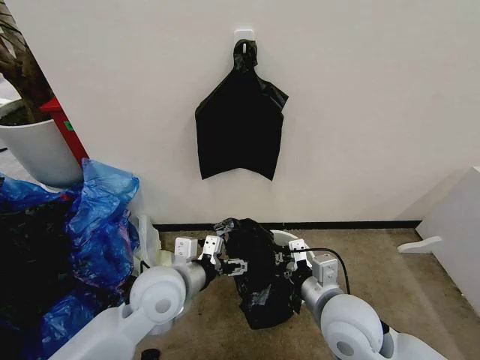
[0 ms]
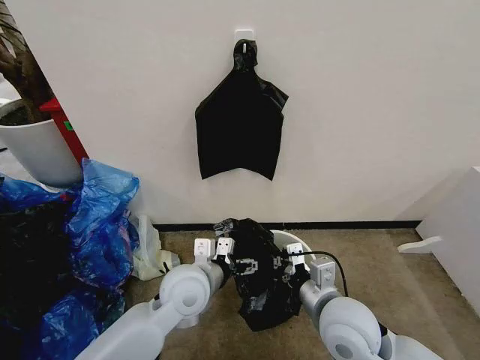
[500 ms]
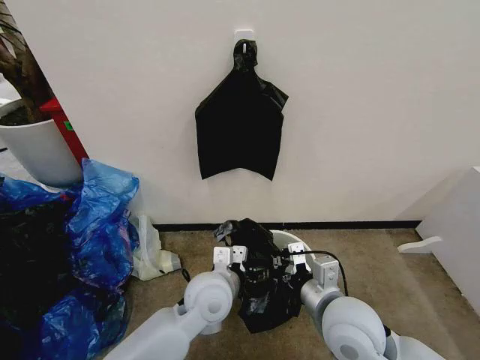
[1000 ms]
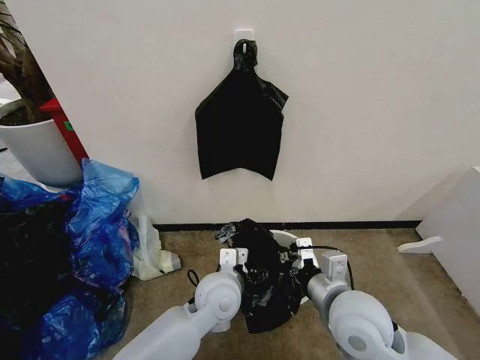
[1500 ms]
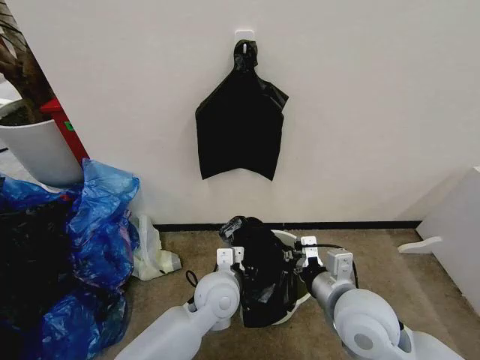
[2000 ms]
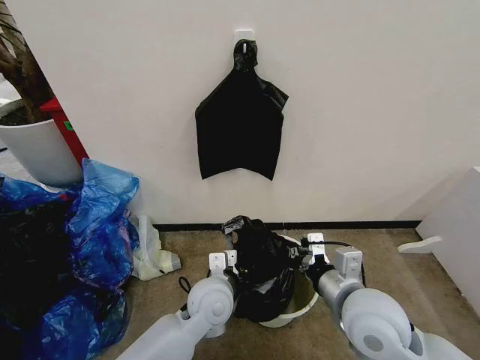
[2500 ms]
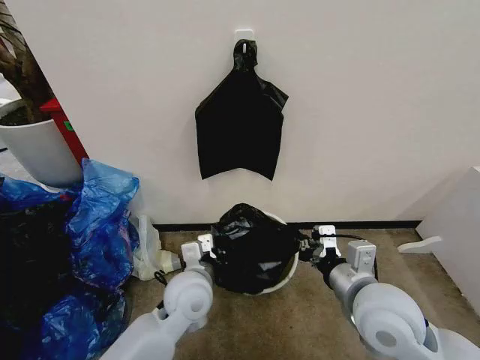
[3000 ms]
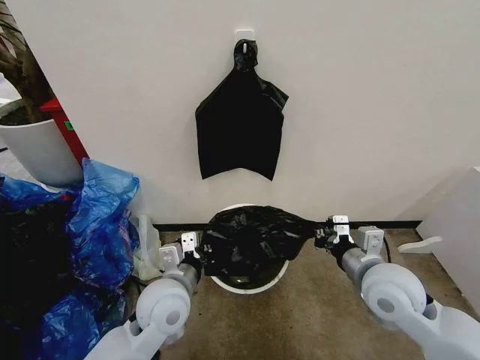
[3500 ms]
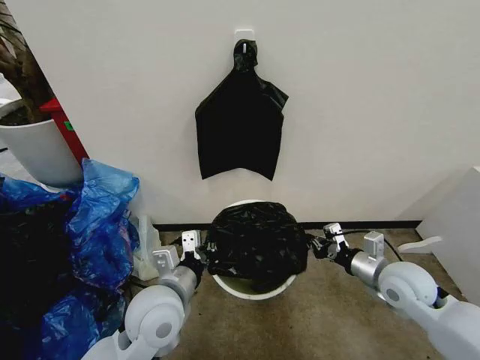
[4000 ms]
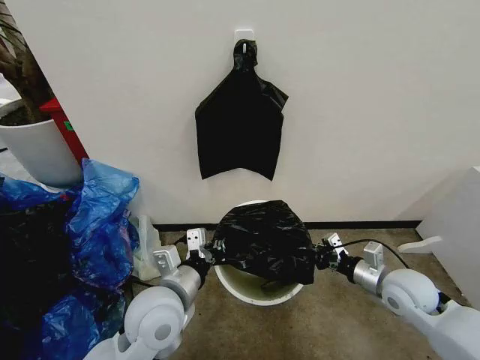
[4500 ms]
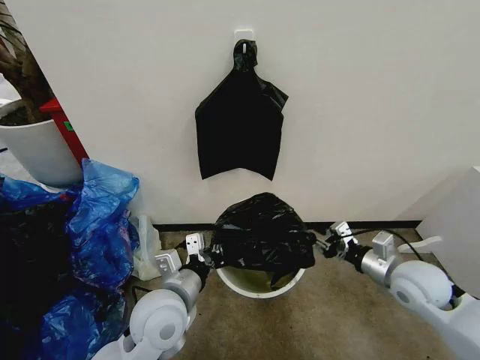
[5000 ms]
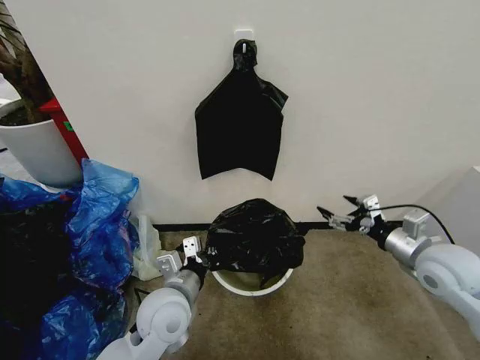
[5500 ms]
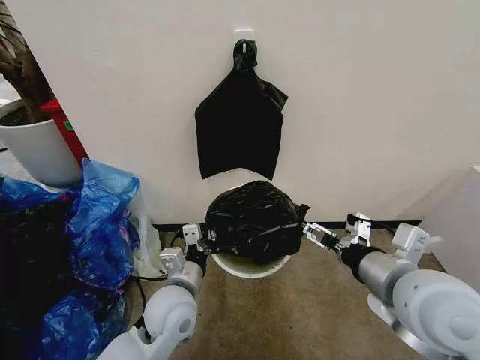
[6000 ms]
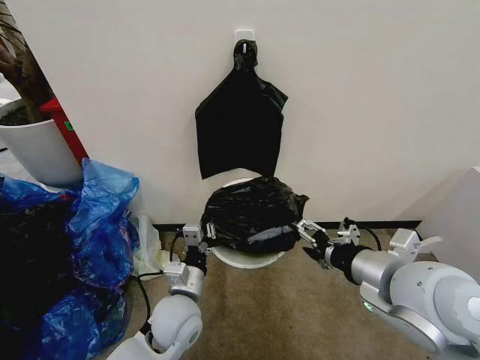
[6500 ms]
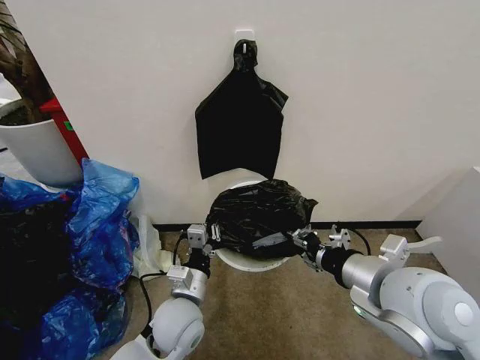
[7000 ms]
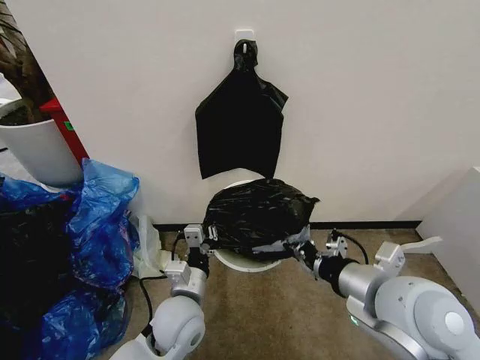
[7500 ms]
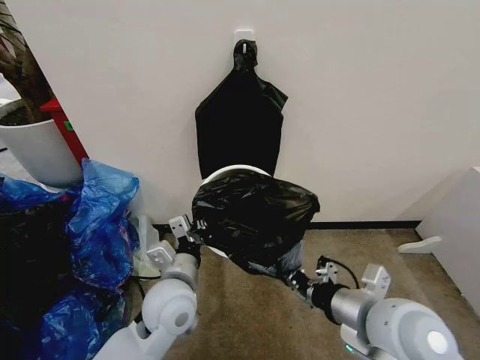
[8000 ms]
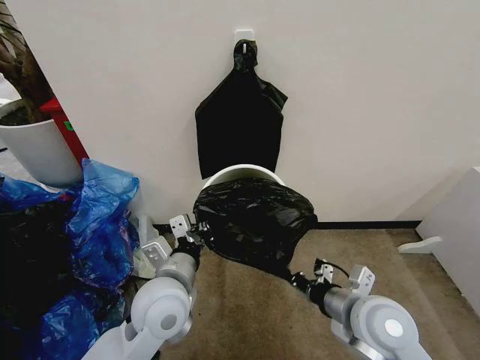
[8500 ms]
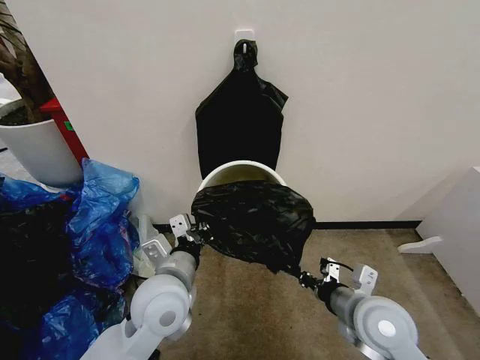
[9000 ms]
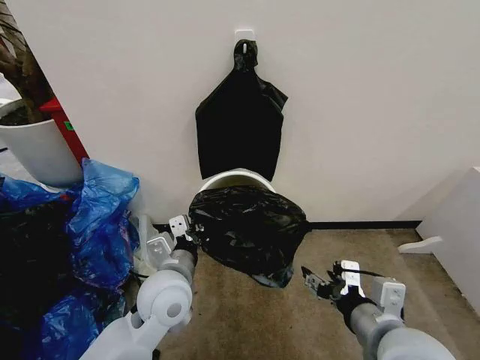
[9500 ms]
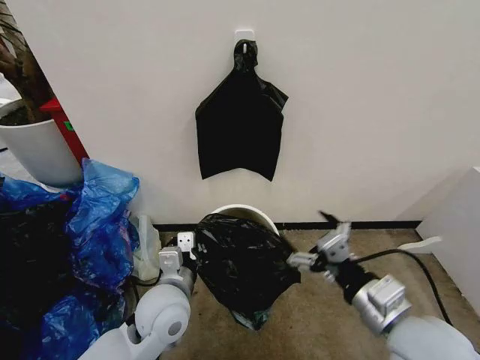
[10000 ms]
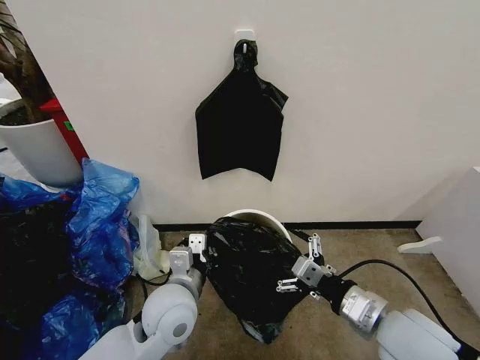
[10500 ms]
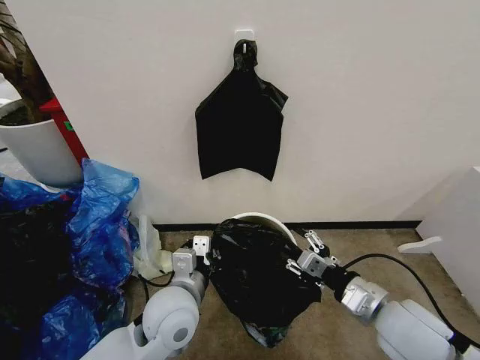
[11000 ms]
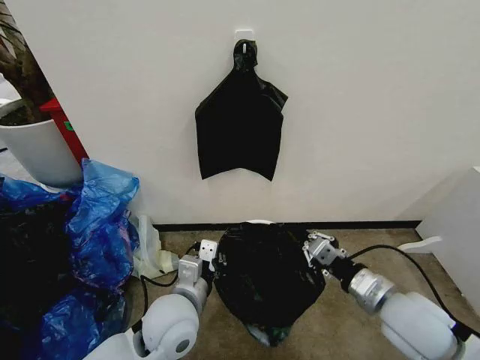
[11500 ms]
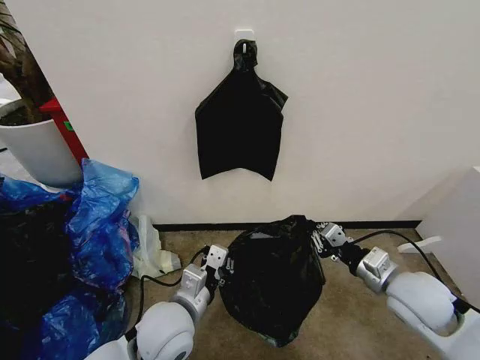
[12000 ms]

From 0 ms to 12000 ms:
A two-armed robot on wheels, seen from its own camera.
Task of the whole recording: Place the garbage bag over the trash bin.
From 0 ms to 2000 ms: The left gripper travels to the right and downward by roughly 15 cm, and closes.
From 2000 ms to 4000 ms: The right gripper shifts approximately 15 cm to the right and forward, while the left gripper moves to the left, upward and backward, about 15 cm, and closes up.
From 4000 ms to 6000 ms: The left gripper moves about 5 cm, while the right gripper heads upward, backward and to the left, covering about 20 cm, and opens its fingers.
From 6000 ms to 8000 ms: The right gripper is displaced downward by approximately 5 cm, and closes.
From 8000 ms to 10000 ms: The right gripper goes downward and returns, some 10 cm each way, and opens its fingers.
From 10000 ms to 12000 ms: The right gripper is displaced forward, to the right and downward by about 15 cm, and closes up.

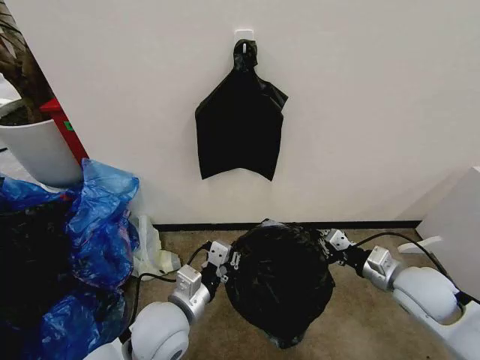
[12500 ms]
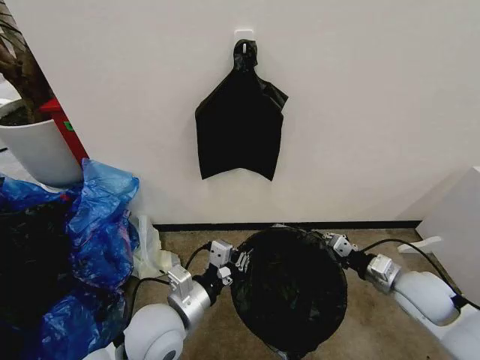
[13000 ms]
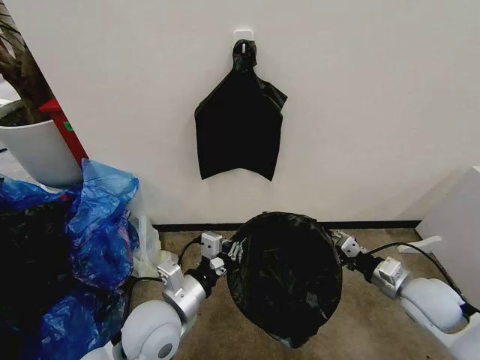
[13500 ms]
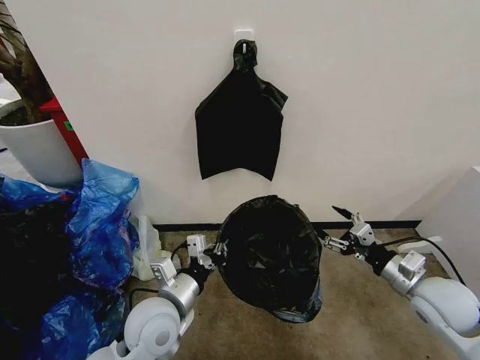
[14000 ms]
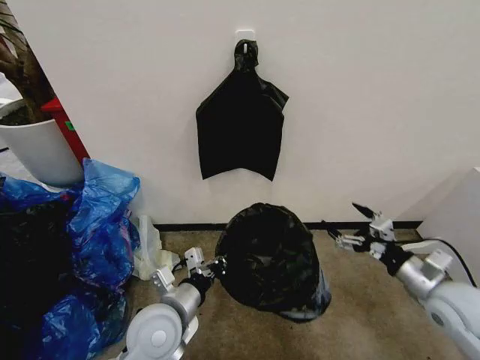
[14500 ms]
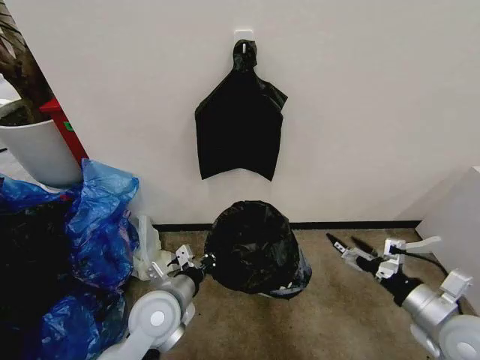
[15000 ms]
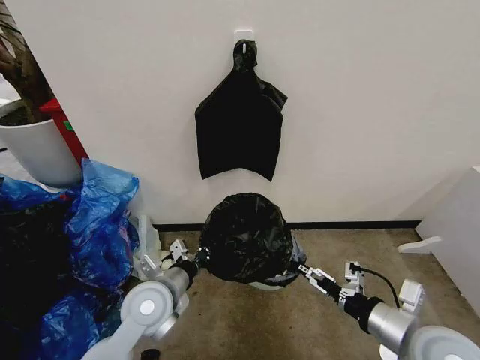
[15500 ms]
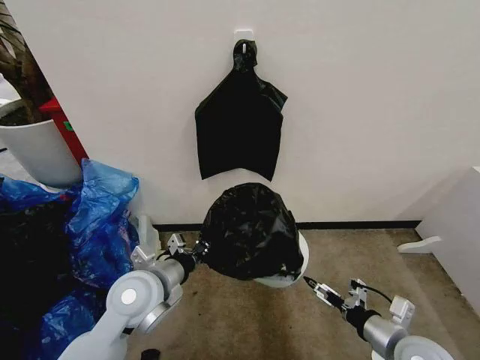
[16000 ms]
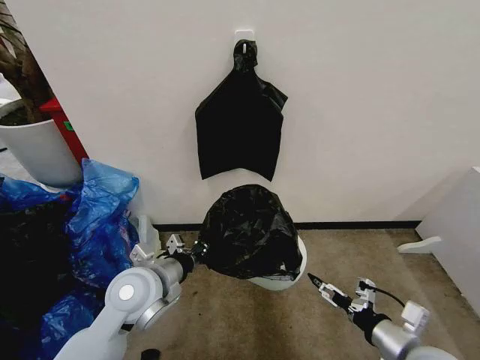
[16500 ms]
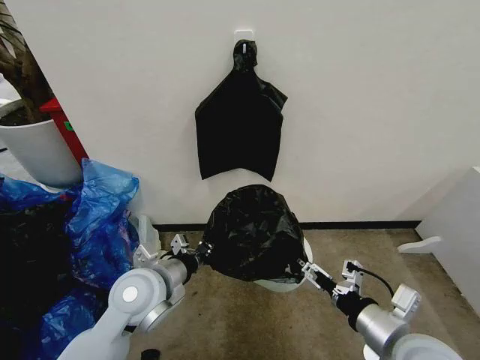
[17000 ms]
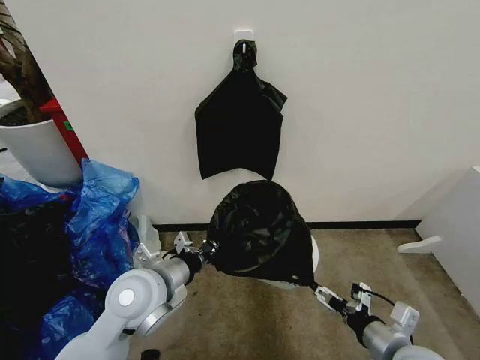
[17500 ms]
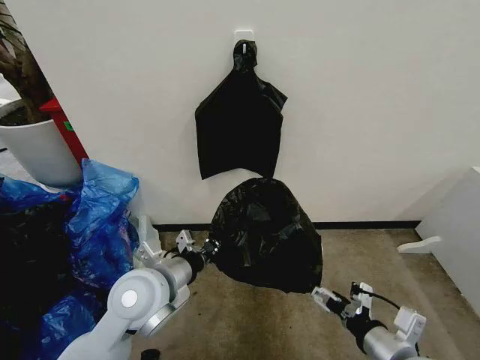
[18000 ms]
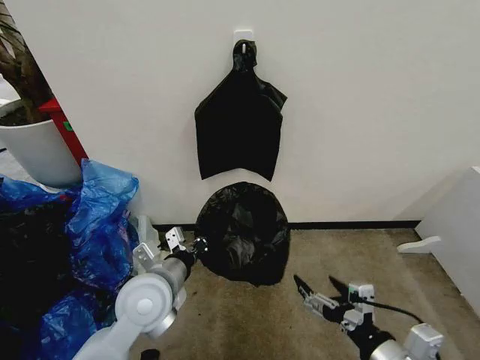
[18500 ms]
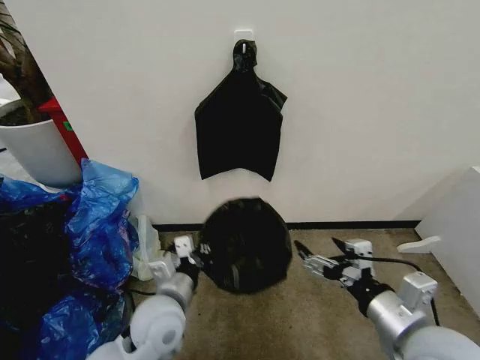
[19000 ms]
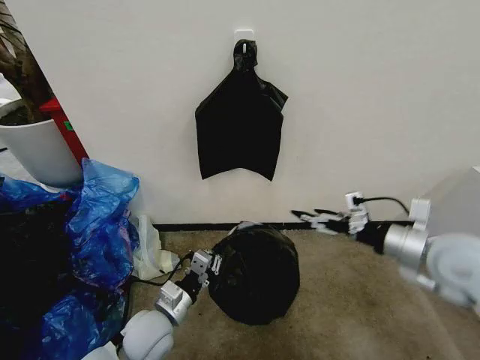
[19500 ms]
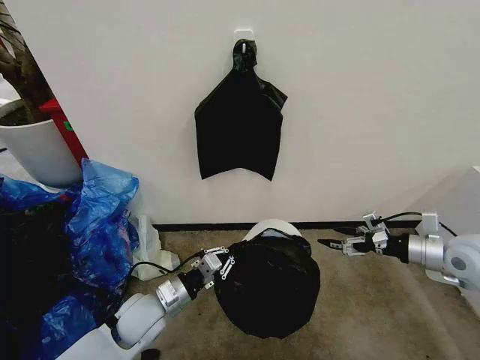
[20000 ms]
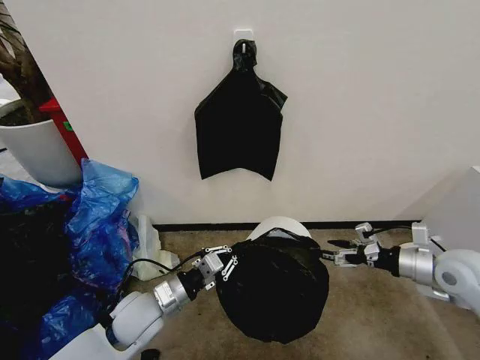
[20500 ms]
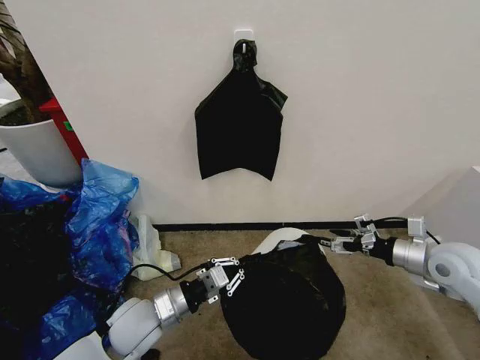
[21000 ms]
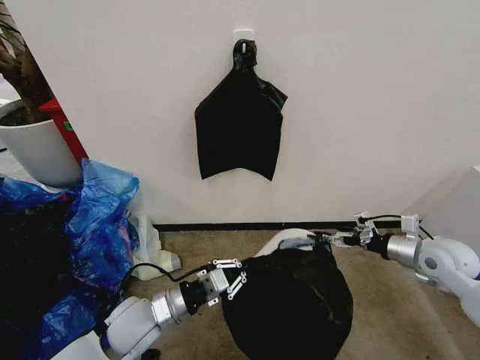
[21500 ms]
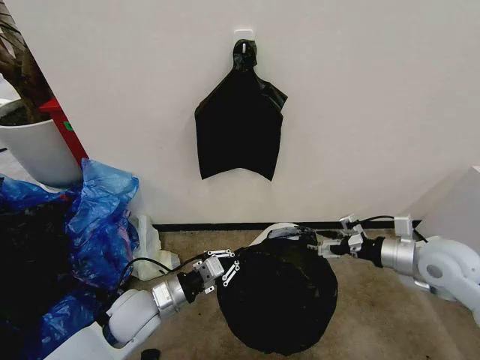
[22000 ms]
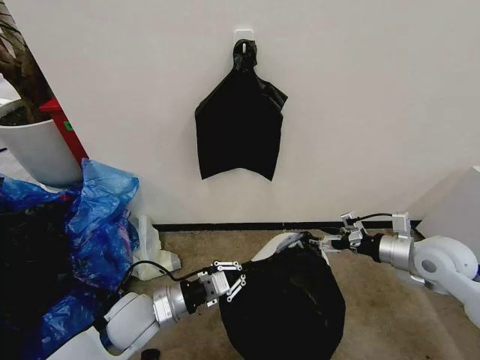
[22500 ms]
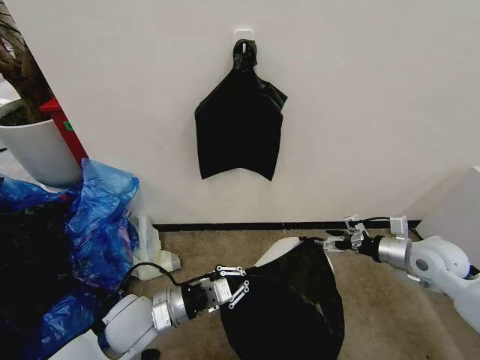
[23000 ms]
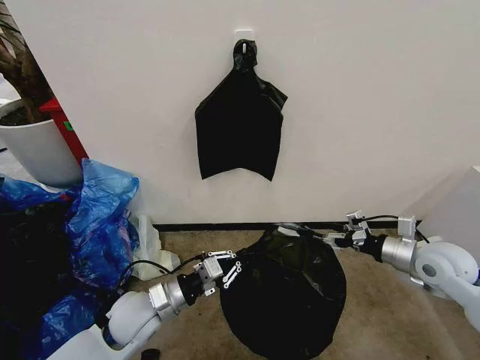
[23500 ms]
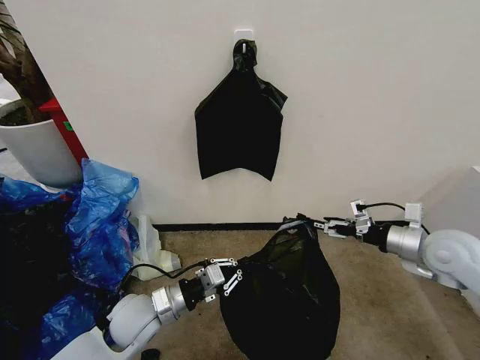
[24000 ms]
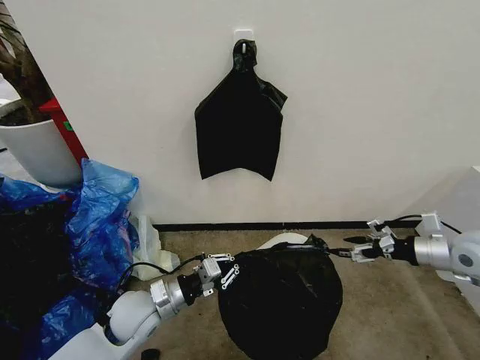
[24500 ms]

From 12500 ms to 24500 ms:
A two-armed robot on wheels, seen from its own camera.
Task of the whole recording: Place the garbage bag over the trash bin.
From 12500 ms to 14500 ms: The right gripper shifts by about 5 cm, and opens its fingers.
From 14500 ms to 16500 ms: The left gripper changes place by roughly 10 cm; the right gripper goes roughly 10 cm backward and to the left.
From 16500 ms to 18500 ms: The right gripper swings up and down, approximately 5 cm each way, with 2 reversals.
From 18500 ms to 20500 ms: The left gripper goes roughly 10 cm downward. Meanwhile the right gripper heads forward and to the right, covering roughly 25 cm.
From 20500 ms to 22500 ms: There are only small adjustments of the grippers.
From 22500 ms to 24500 ms: The right gripper moves to the right, approximately 5 cm.

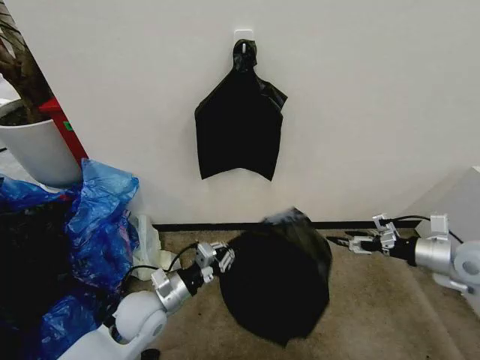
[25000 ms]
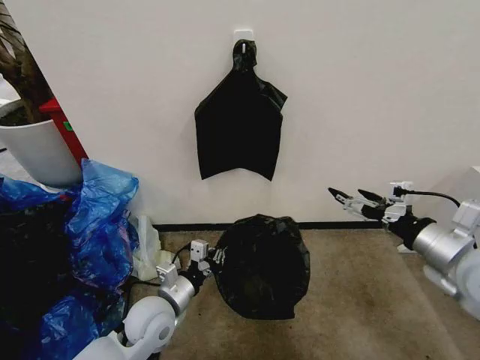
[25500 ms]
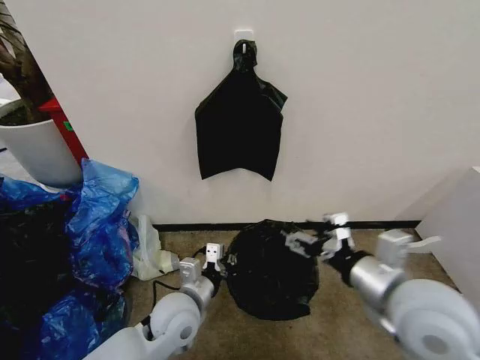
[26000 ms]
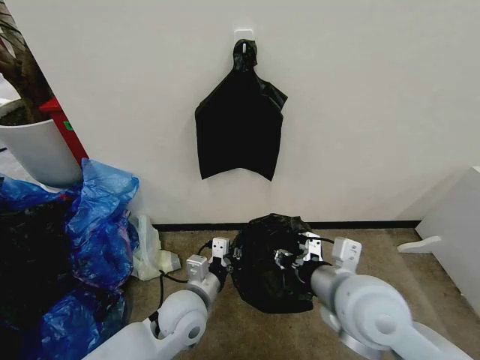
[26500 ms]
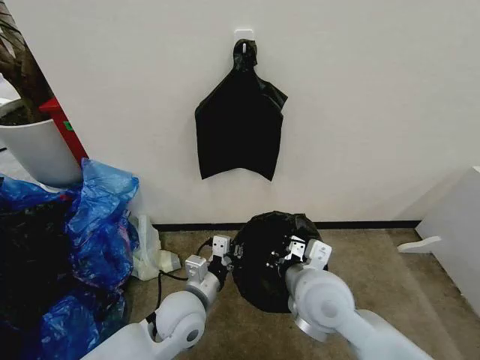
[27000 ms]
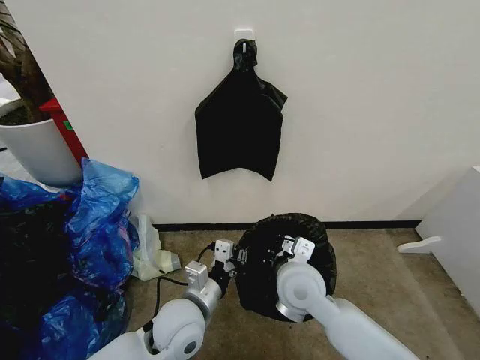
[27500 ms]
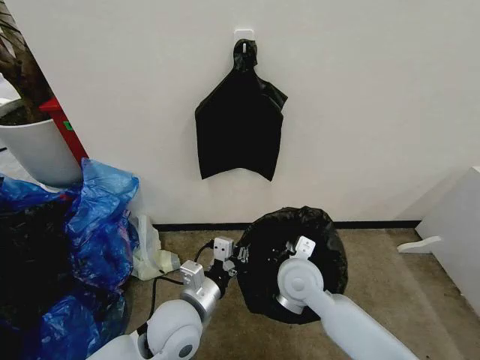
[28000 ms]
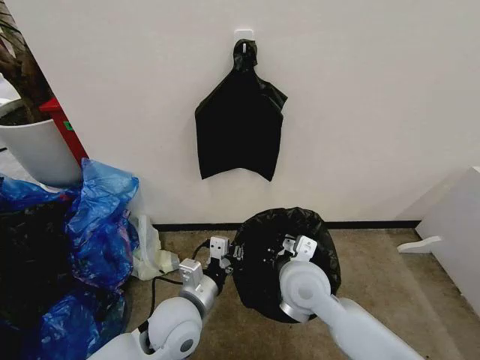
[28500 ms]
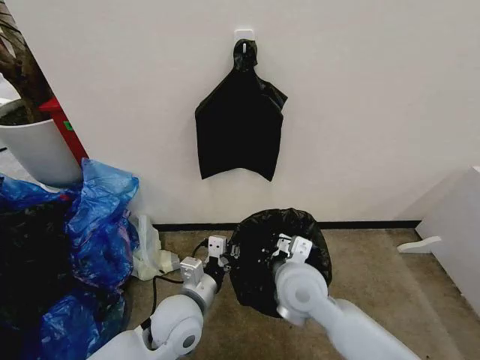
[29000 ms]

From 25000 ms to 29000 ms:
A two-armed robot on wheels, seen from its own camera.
Task of the whole recording: Place the garbage bag over the trash bin.
From 25000 ms to 27000 ms: The left gripper moves to the right, about 10 cm. The right gripper goes approximately 35 cm to the left, and closes its fingers.
